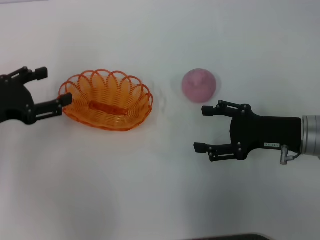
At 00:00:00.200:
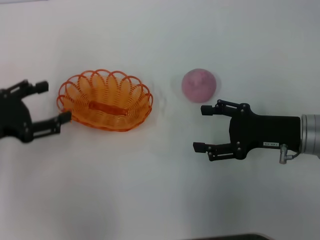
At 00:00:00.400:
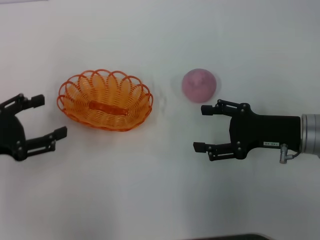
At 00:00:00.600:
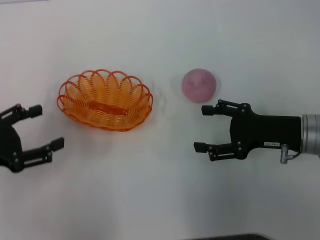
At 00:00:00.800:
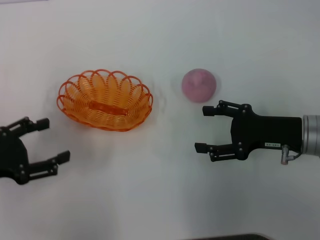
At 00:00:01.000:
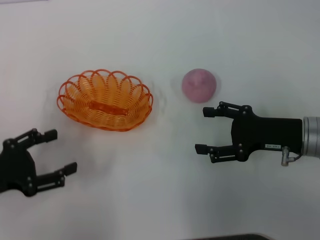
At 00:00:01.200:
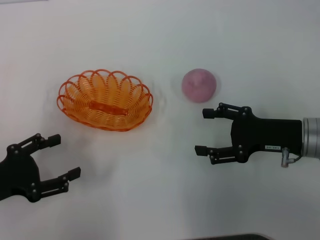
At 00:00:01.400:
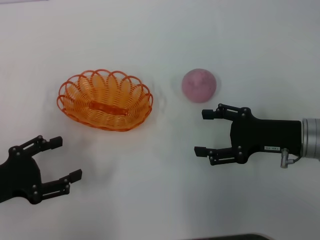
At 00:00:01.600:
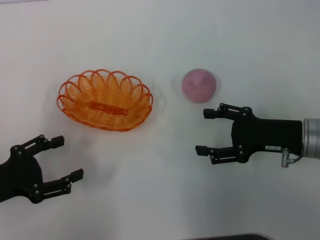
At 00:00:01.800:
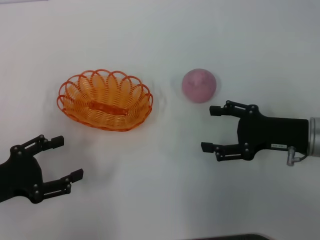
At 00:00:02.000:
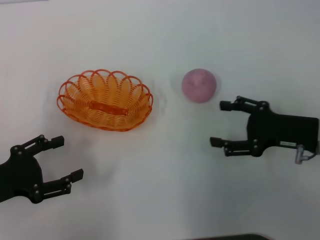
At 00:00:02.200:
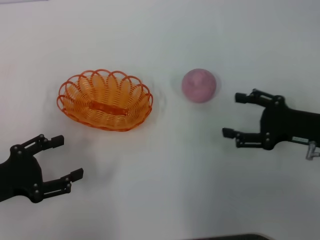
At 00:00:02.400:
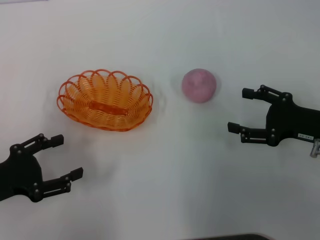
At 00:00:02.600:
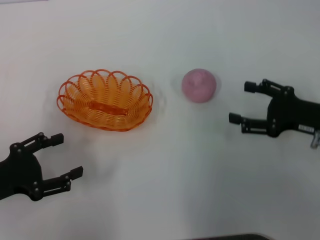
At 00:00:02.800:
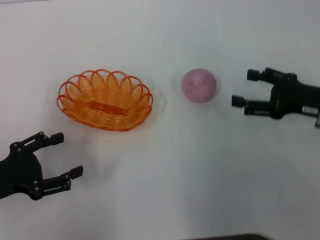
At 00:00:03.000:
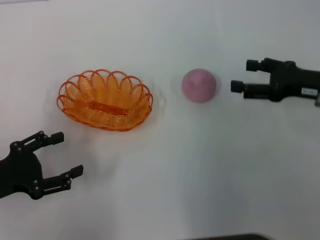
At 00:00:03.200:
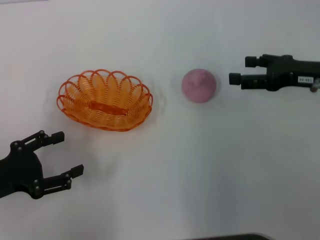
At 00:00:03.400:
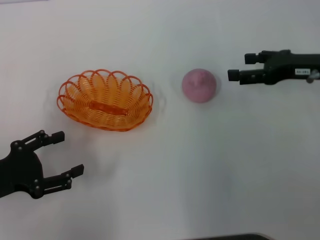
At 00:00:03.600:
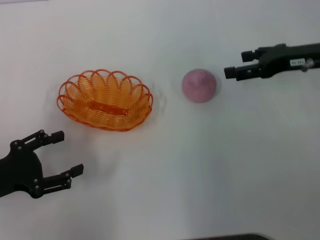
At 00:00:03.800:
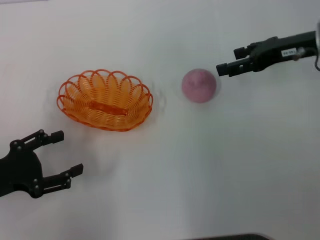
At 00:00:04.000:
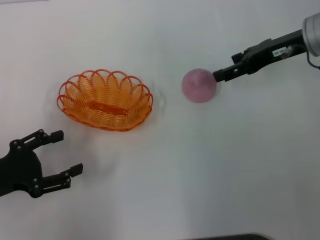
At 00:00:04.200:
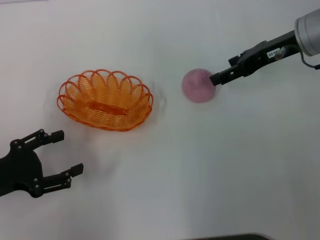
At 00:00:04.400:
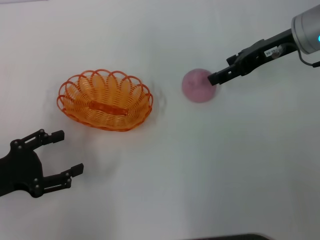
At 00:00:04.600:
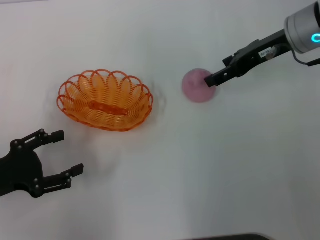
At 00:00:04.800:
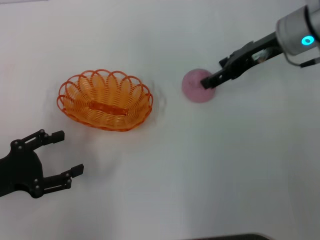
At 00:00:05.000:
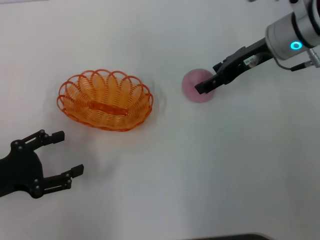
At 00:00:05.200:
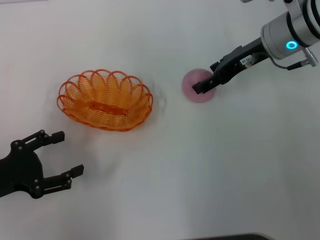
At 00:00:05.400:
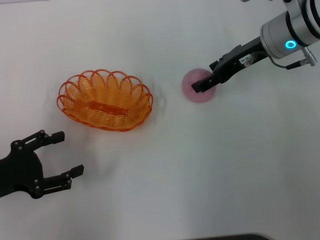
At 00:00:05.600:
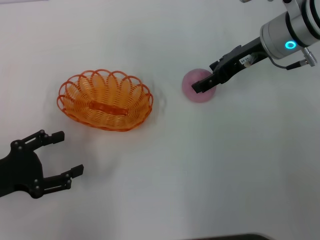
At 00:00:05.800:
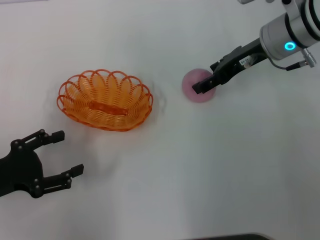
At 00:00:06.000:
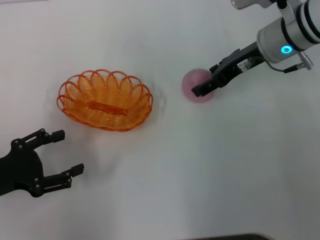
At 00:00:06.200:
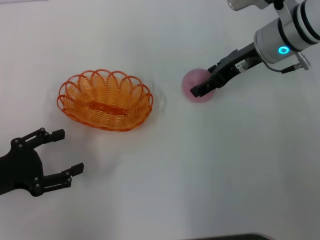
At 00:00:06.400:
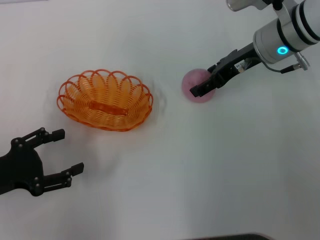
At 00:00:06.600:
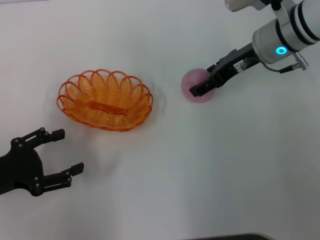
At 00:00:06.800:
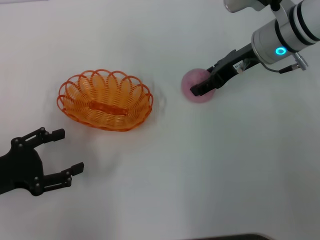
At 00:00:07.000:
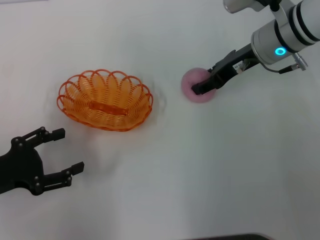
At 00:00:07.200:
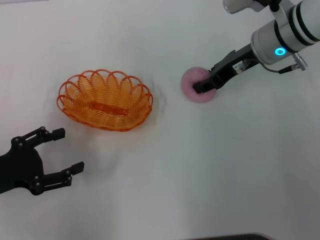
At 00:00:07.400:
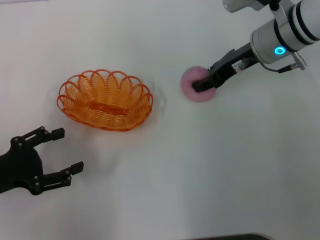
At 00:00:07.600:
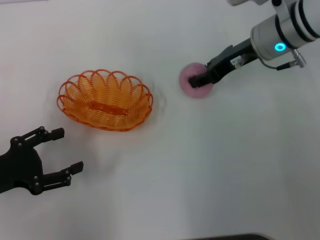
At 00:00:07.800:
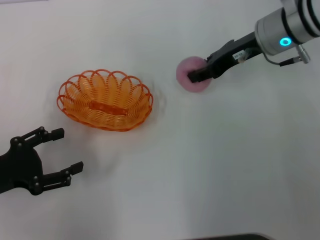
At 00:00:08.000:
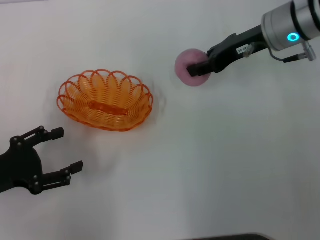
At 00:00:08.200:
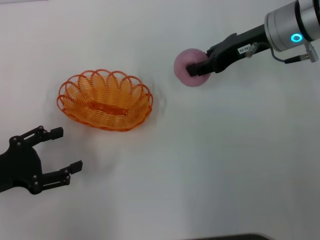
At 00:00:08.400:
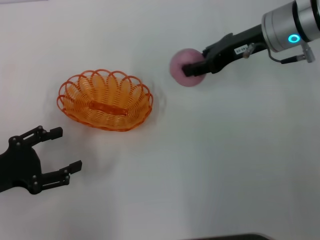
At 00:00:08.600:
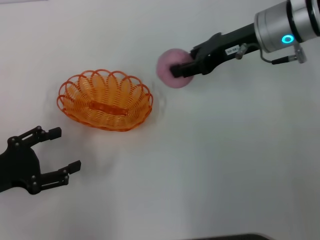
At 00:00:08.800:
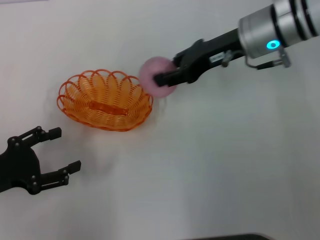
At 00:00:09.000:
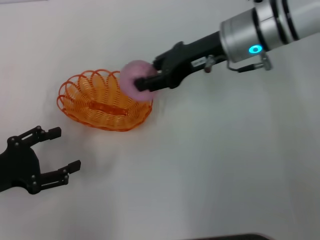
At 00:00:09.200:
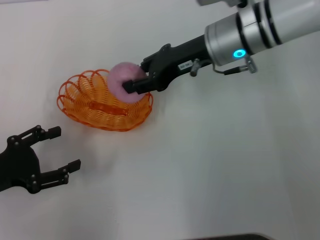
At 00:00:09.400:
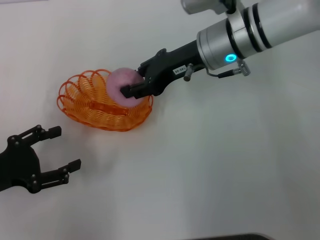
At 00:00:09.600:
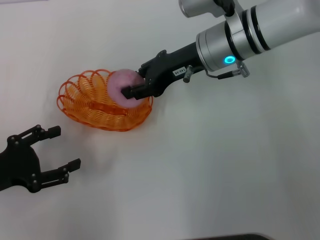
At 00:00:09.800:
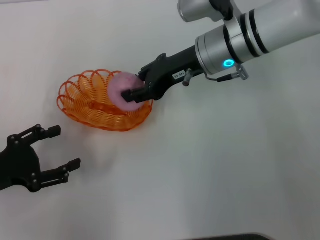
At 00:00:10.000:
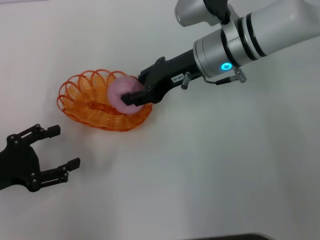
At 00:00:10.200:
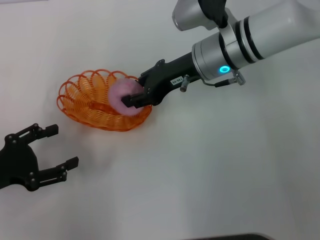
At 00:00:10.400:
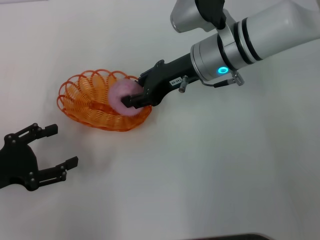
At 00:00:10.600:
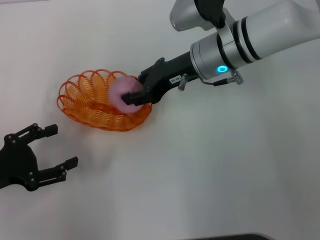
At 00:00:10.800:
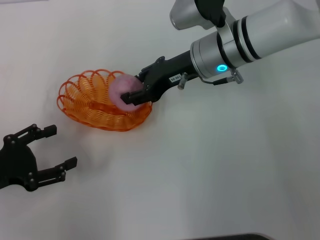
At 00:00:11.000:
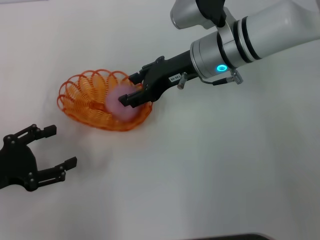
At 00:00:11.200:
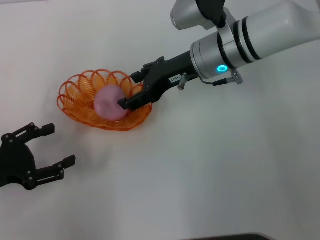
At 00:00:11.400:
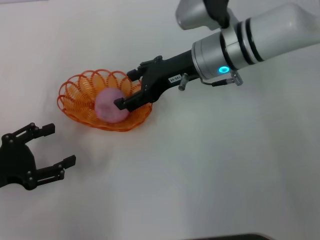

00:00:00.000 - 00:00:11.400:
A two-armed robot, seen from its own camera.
Step, 00:00:00.600 - 00:00:08.400: Pick up the peach with the right gripper.
00:00:00.000 - 00:00:01.400: The left gripper travels backward by roughly 10 cm.
00:00:01.400 - 00:00:02.800: The right gripper shifts about 5 cm to the right.
00:00:02.800 - 00:00:04.200: The right gripper is displaced forward, upward and to the left by some 15 cm.
00:00:04.200 - 00:00:05.600: The grippers stay close to where they were, moving slightly.
00:00:05.600 - 00:00:07.200: The right gripper closes.
00:00:07.200 - 00:00:08.600: The right gripper closes up.
00:00:08.600 - 00:00:10.000: The right gripper travels to the left by about 10 cm.
00:00:10.000 - 00:00:11.400: The right gripper opens its fingers.

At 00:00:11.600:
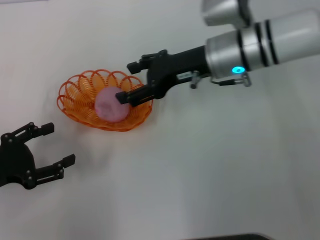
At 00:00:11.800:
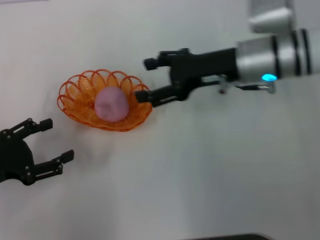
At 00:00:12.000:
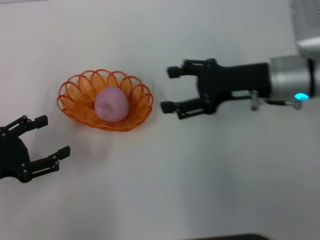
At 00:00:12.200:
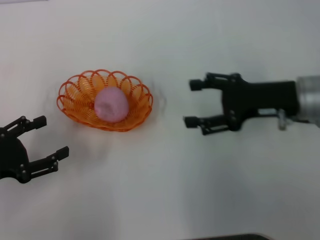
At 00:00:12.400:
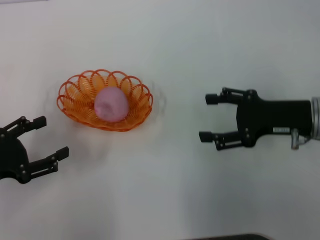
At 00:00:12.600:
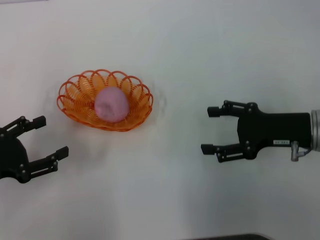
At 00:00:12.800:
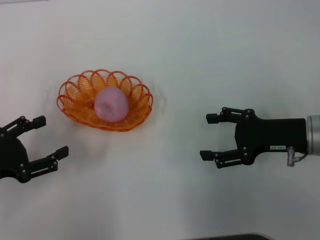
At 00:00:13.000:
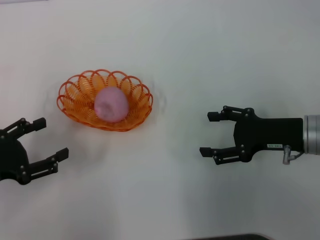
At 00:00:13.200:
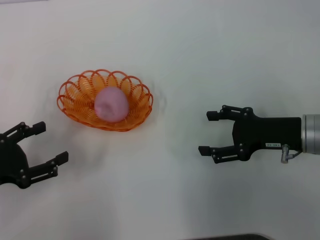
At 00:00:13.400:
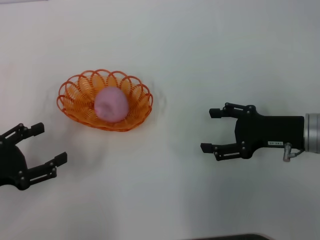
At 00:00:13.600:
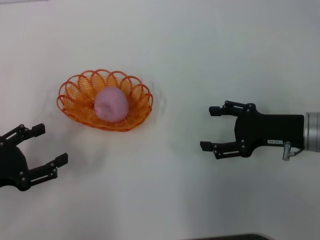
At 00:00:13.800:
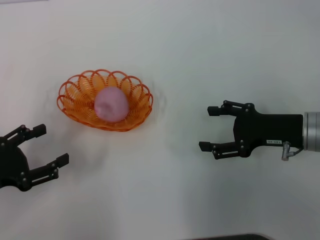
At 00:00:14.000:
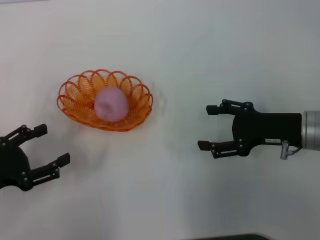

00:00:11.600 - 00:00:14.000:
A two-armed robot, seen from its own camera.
00:00:11.600 - 00:00:12.800: The right gripper heads to the right, backward and downward, covering approximately 20 cm.
00:00:12.800 - 00:00:14.000: The two grippers keep their place.
